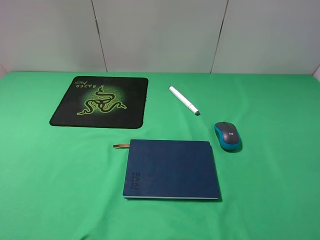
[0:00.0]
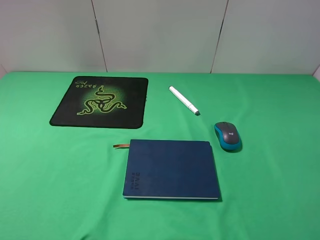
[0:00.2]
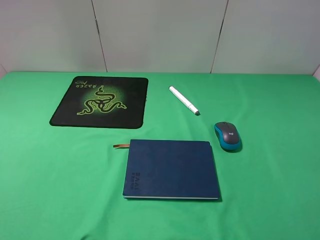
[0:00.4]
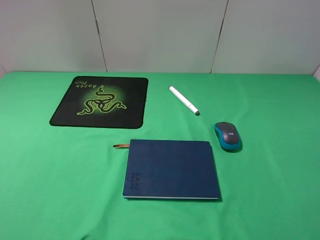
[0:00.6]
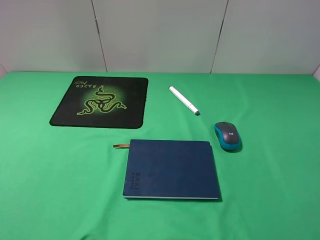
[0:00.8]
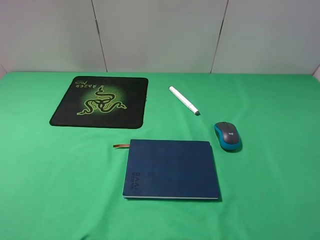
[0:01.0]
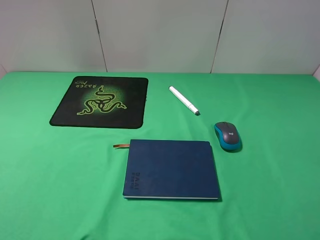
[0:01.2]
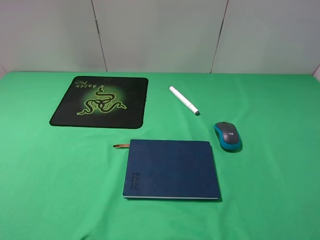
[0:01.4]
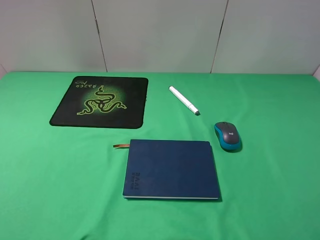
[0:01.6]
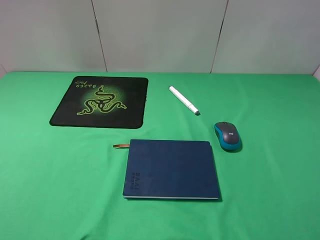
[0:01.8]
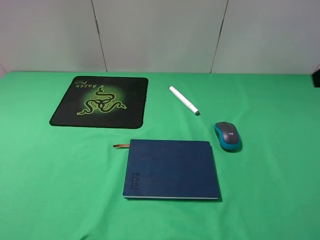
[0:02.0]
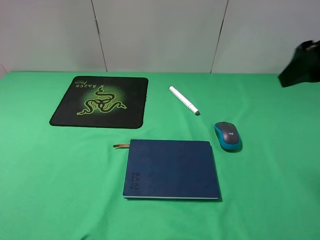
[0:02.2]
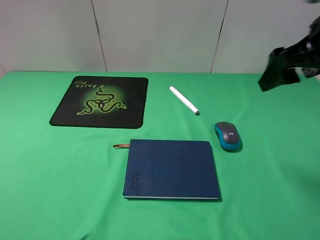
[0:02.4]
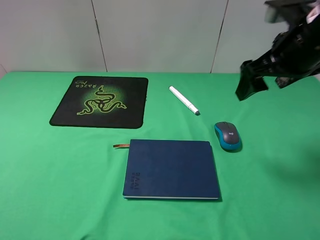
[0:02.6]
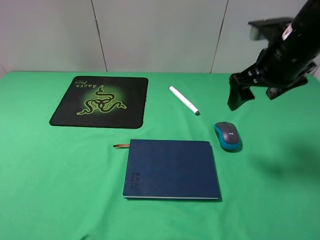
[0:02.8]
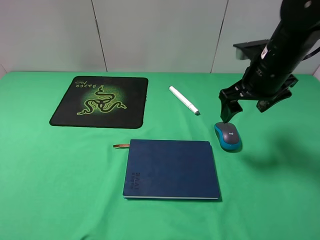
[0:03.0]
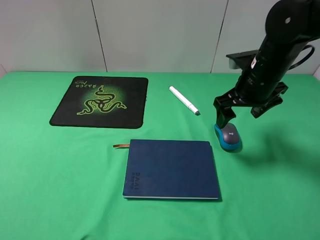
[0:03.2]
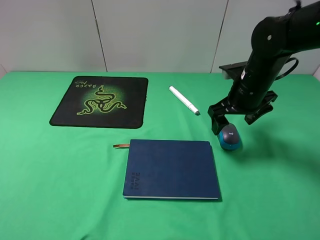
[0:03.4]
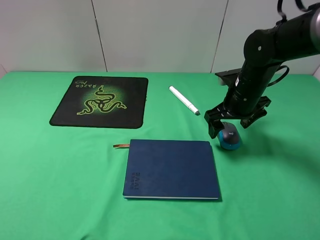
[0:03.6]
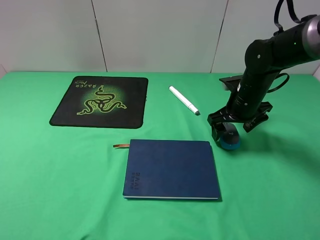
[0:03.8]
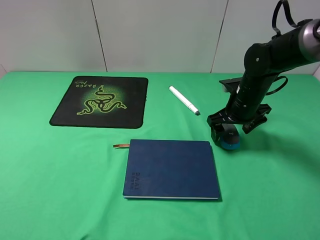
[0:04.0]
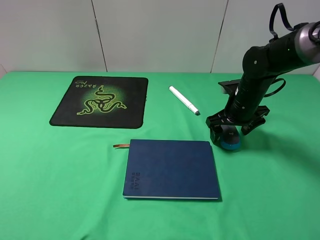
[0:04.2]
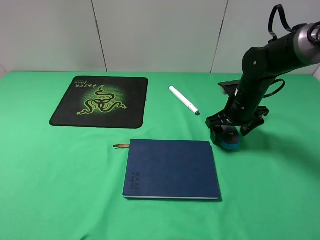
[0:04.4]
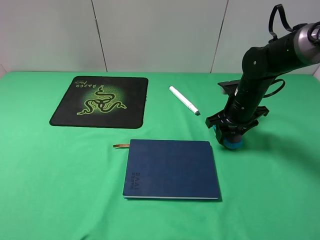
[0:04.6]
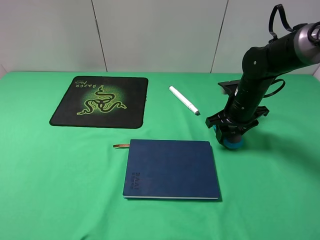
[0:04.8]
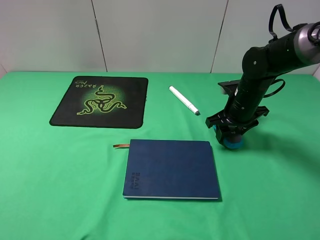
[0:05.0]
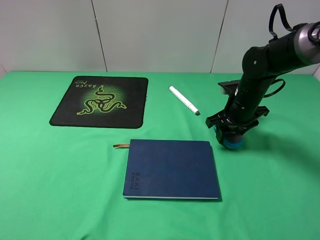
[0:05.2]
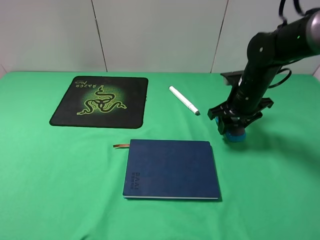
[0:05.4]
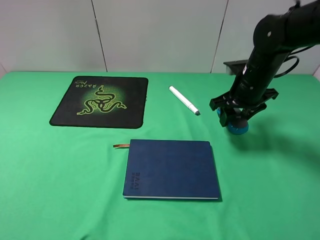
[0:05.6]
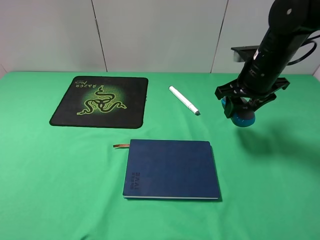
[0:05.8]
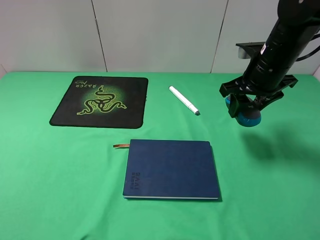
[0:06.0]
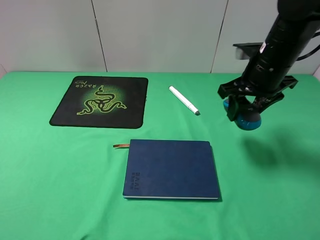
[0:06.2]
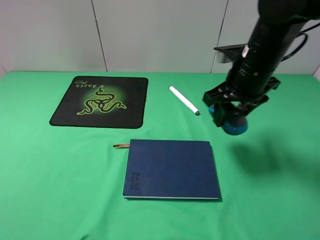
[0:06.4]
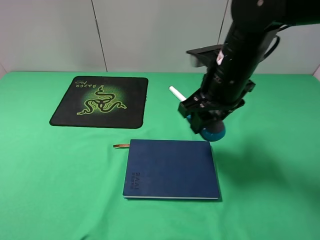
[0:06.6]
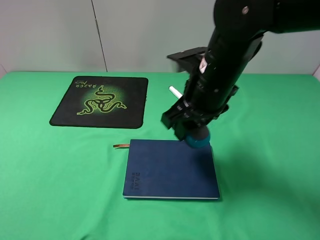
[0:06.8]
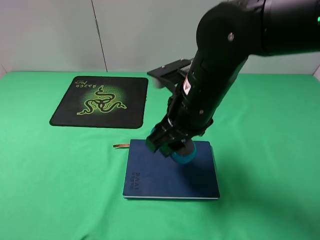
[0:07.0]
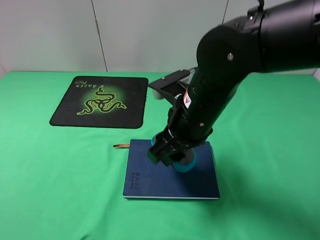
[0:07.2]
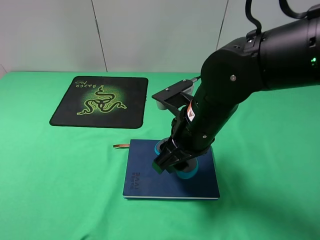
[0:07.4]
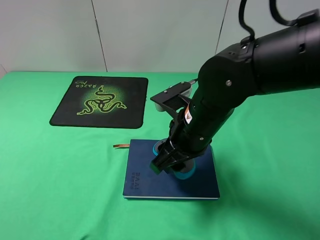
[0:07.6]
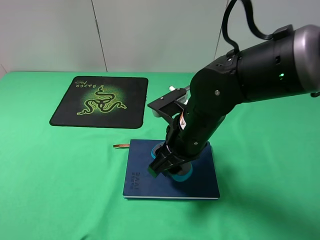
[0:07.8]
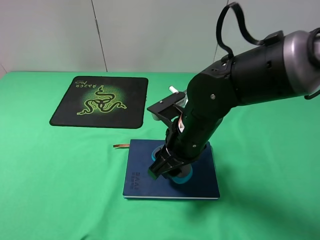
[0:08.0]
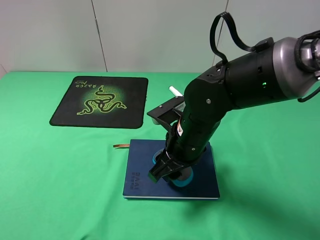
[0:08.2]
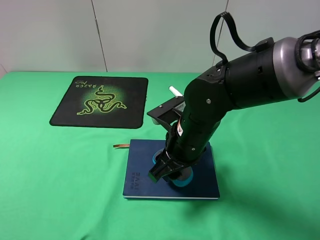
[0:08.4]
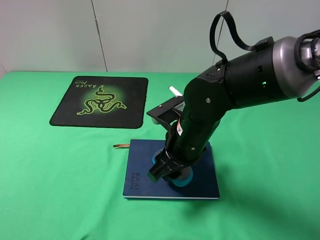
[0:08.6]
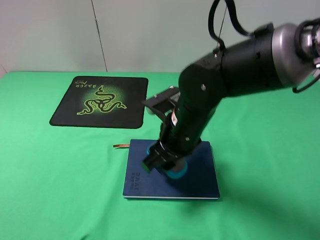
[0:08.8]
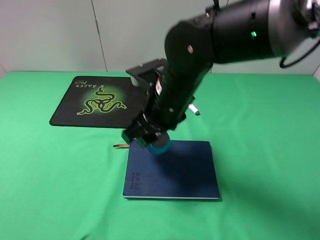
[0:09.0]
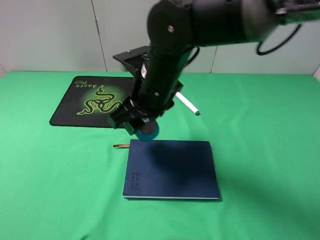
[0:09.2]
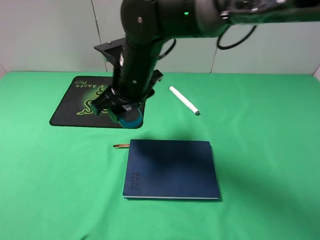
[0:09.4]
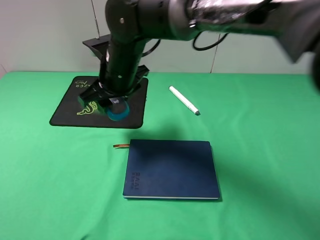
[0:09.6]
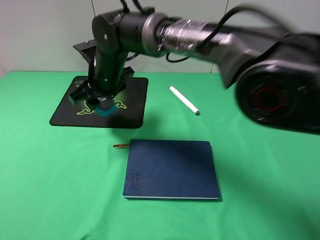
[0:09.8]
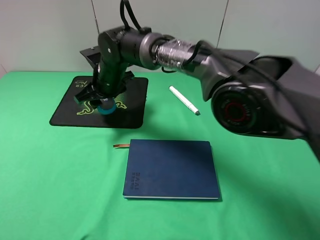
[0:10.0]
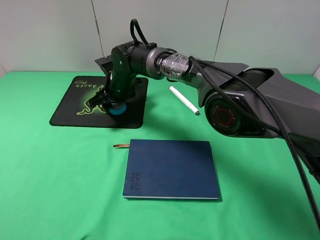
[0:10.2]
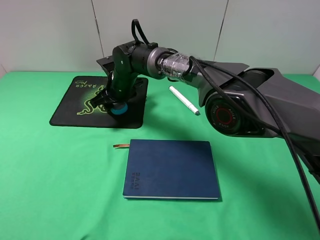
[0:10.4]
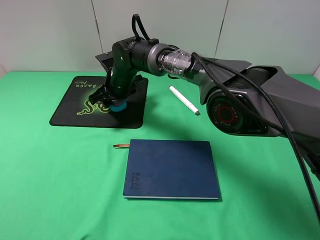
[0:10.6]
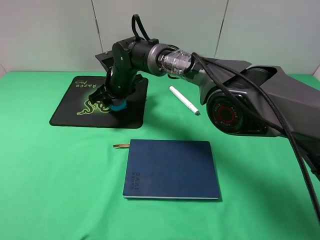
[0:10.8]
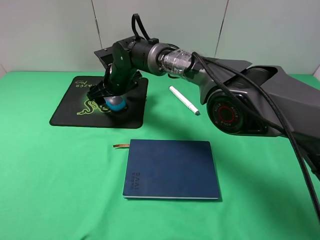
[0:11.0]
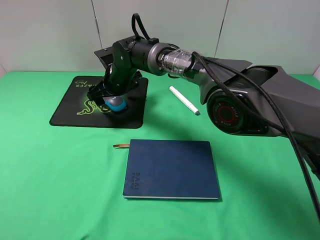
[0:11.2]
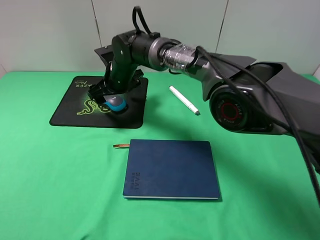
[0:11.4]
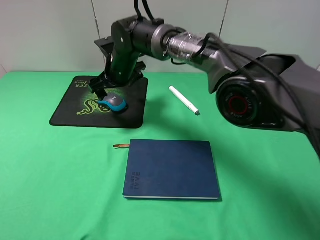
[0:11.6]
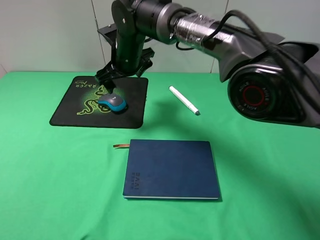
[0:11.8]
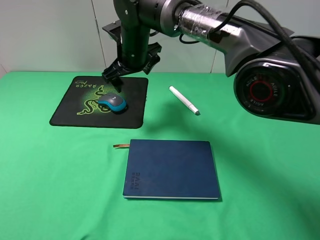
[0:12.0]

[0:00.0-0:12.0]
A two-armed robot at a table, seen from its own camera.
Step, 0:00.0 to 0:05.0: Grasp the mouse with the right gripper.
Step, 0:05.2 to 0:11.6: Place the mouse on the mouse pad with the right gripper.
0:01.6 to 0:03.0: The right gripper moves forward, downward and to the left, about 25 cm.
0:03.0 to 0:04.4: The right gripper moves downward, about 10 cm.
0:04.4 to 0:06.0: The right gripper is displaced upward by roughly 10 cm, and closes up.
0:06.0 to 0:07.6: The right gripper heads to the left and backward, covering approximately 20 cm.
0:07.6 to 0:09.0: The right gripper moves approximately 5 cm.
0:09.0 to 0:10.4: The right gripper is displaced forward, to the left and downward by approximately 20 cm.
0:10.4 to 0:12.0: The right gripper moves upward, approximately 10 cm, and opens its fingers.

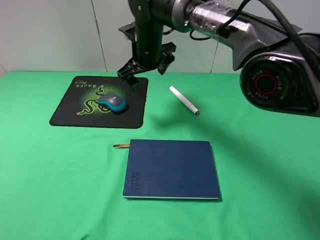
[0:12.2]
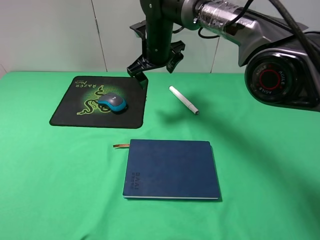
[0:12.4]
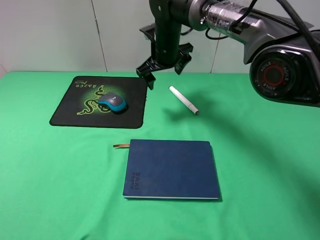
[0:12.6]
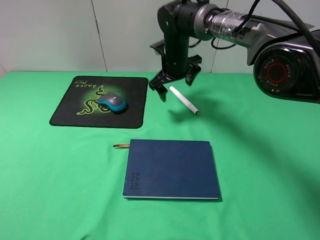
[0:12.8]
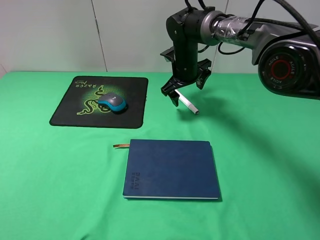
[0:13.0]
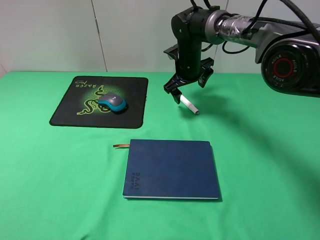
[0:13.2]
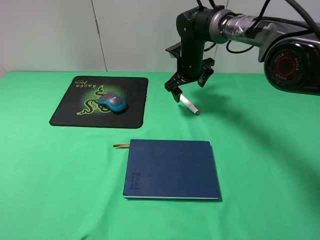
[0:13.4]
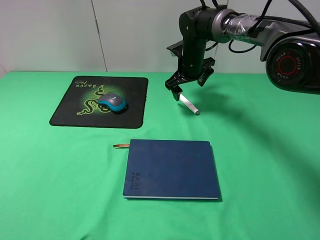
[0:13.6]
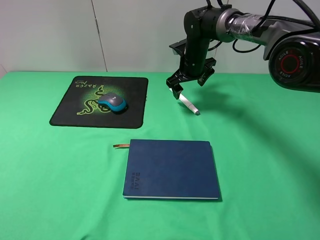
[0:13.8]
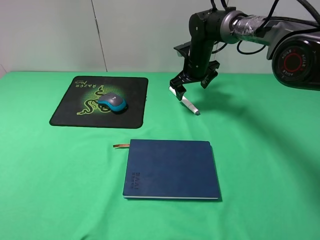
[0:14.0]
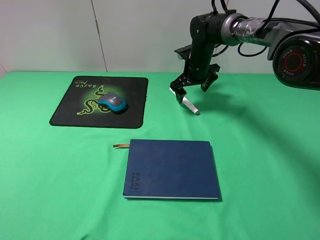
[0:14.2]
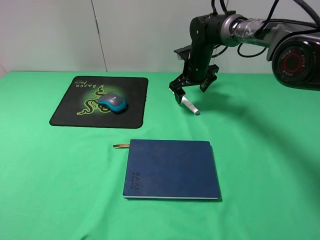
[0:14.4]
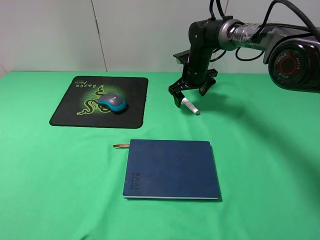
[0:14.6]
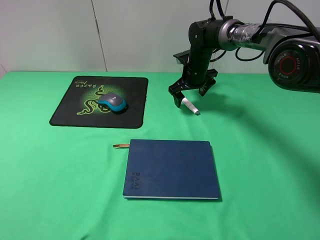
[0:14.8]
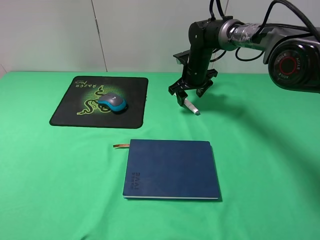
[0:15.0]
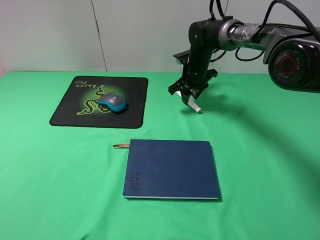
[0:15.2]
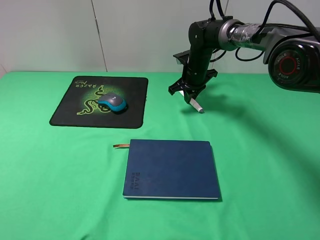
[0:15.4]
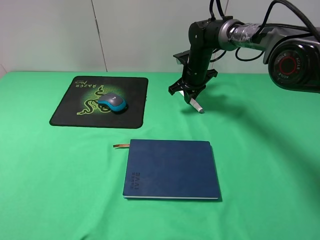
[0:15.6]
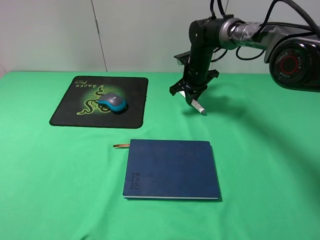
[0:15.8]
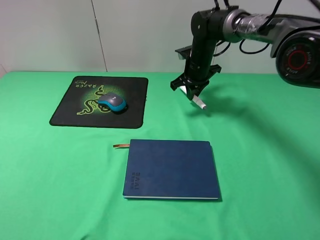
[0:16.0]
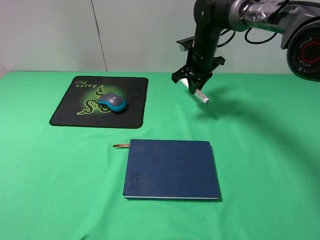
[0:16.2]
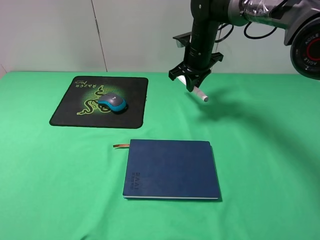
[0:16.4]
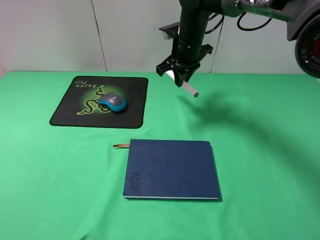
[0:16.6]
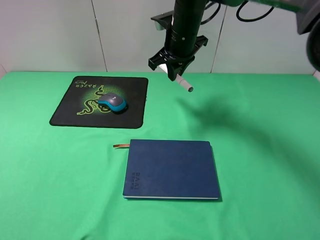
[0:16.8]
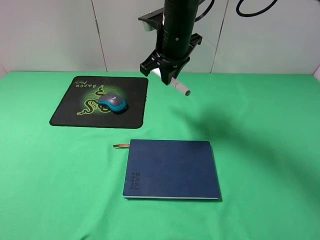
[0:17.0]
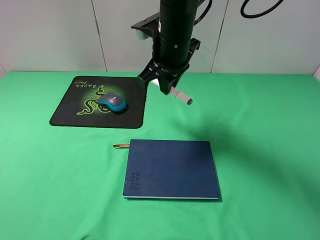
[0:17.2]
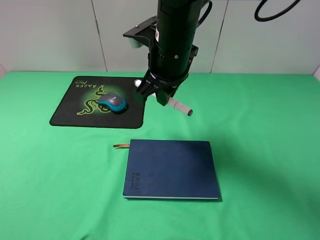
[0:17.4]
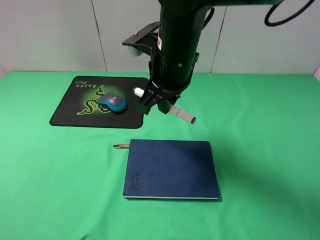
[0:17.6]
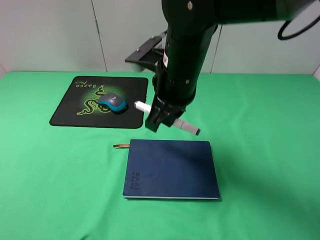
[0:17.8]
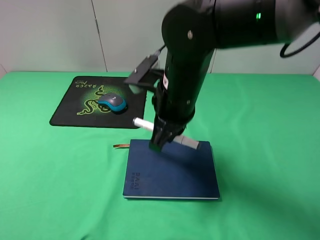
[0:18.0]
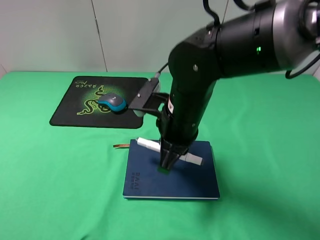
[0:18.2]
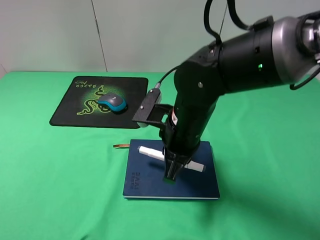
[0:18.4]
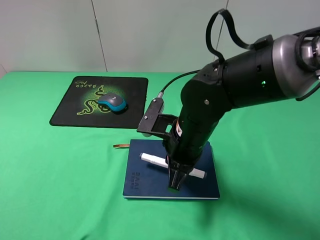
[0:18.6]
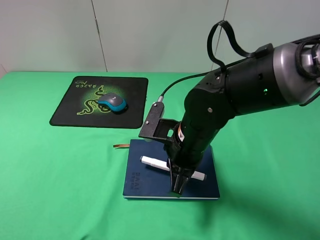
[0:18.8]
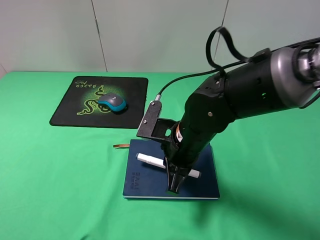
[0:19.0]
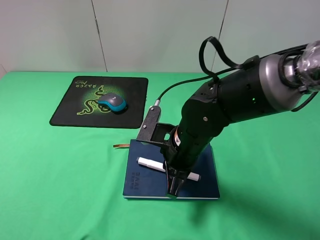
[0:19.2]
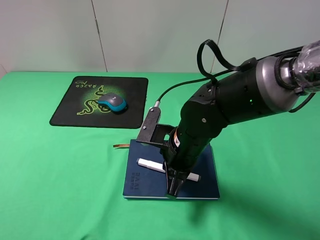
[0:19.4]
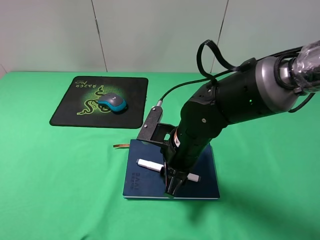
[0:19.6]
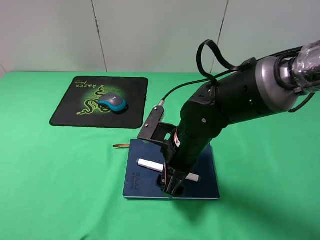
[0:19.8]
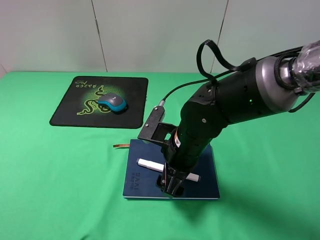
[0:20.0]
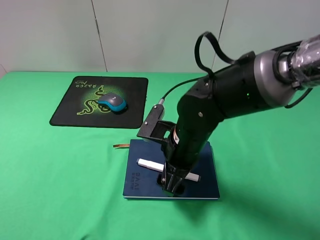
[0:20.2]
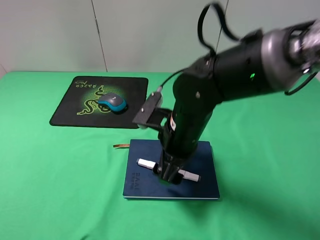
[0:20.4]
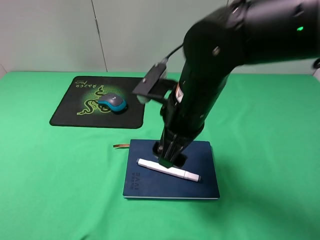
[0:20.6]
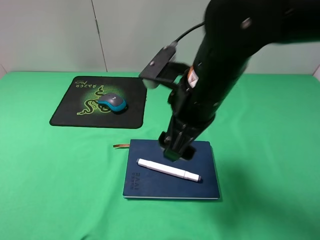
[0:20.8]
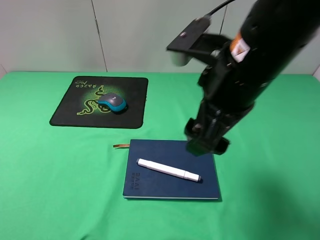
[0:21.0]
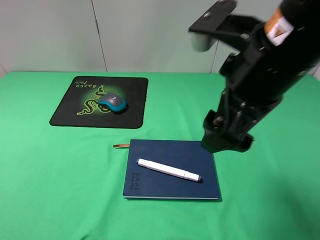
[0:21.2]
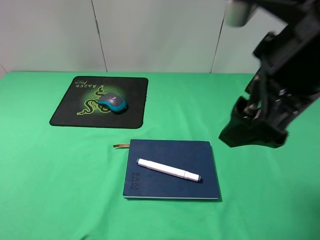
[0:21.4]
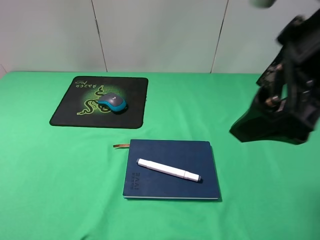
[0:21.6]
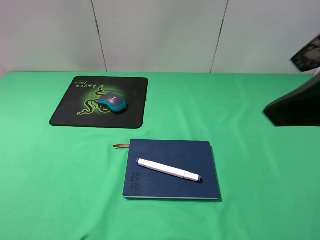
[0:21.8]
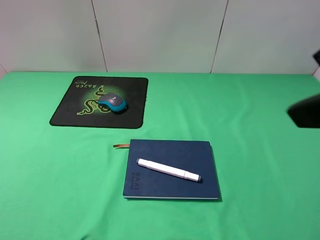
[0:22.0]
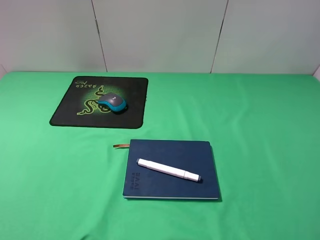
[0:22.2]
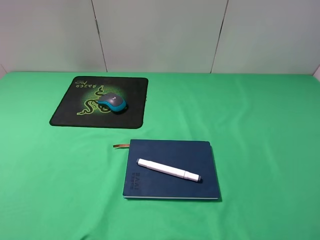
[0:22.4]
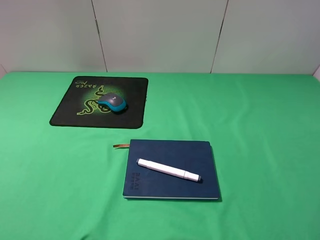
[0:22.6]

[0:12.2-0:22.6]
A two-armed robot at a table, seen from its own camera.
Step, 0:12.2 to 0:15.4: Grasp the marker with the right gripper.
Step, 0:15.6 to 0:20.4: Place the marker on the notebook with the right gripper.
0:12.2 to 0:13.6: The right gripper is displaced to the right, downward and forward by roughly 15 cm.
0:13.6 to 0:15.2: The right gripper closes.
0:15.2 to 0:16.6: The right gripper is displaced upward and backward by roughly 10 cm.
0:16.6 to 0:18.2: The right gripper is displaced backward by about 20 cm.
0:18.2 to 0:19.6: The right gripper travels downward by approximately 5 cm, and opens up.
0:19.6 to 0:21.2: The right gripper shifts approximately 20 cm upward.
0:21.2 to 0:22.6: The right gripper goes some 20 cm to the right and backward.
